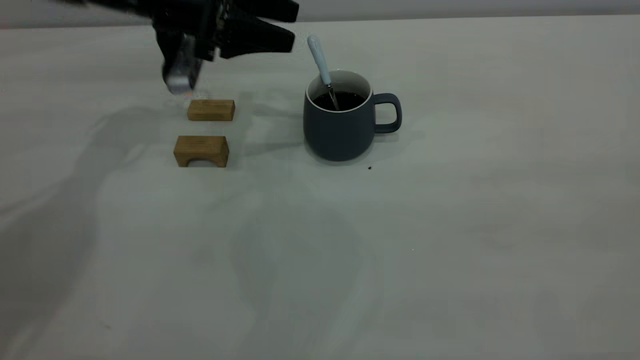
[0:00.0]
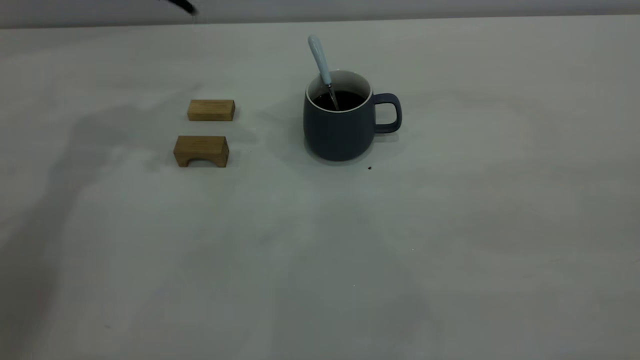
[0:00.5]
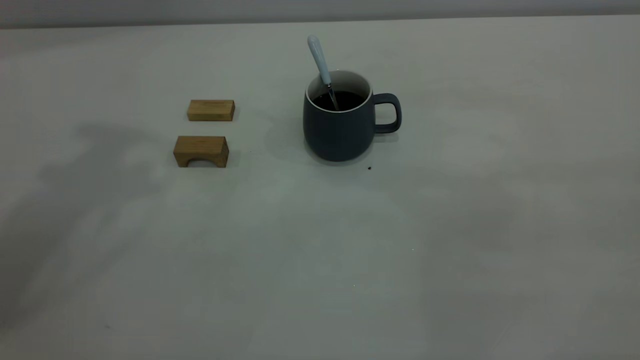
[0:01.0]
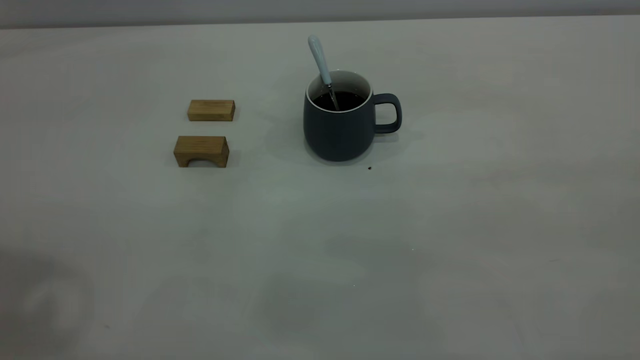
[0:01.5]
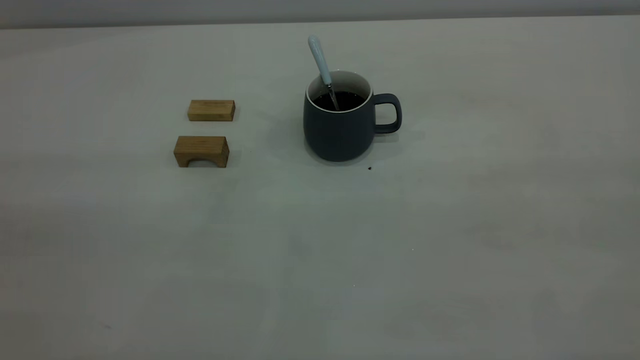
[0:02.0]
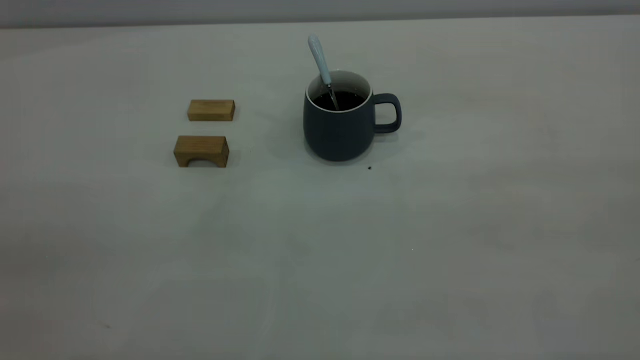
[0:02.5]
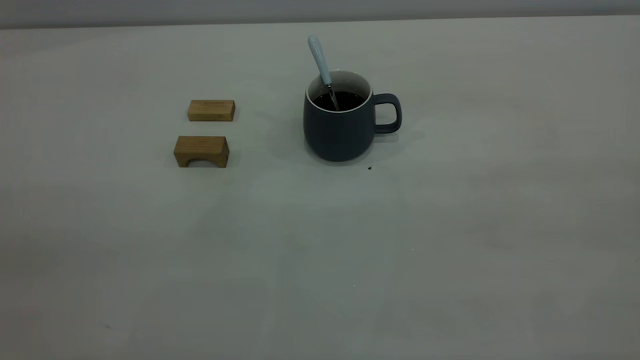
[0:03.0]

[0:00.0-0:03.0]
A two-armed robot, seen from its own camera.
0:00.0 to 0:01.5: The left gripper moves backward and upward, roughly 40 cm.

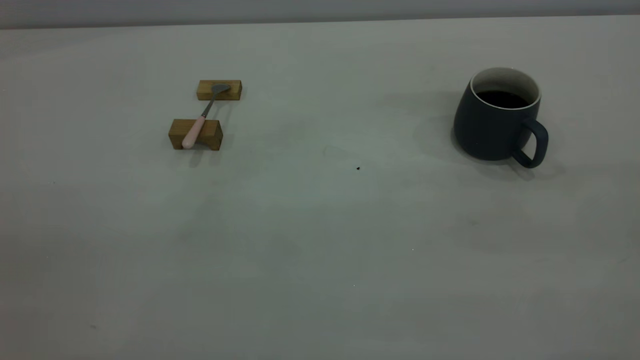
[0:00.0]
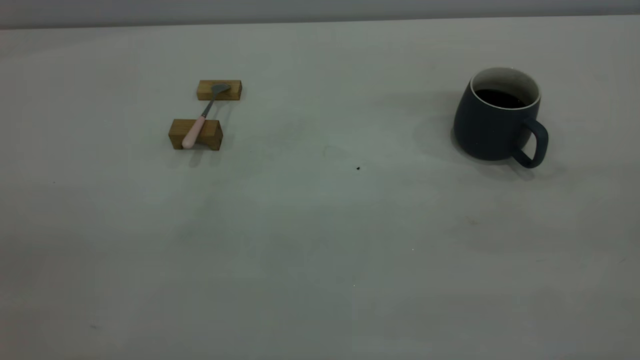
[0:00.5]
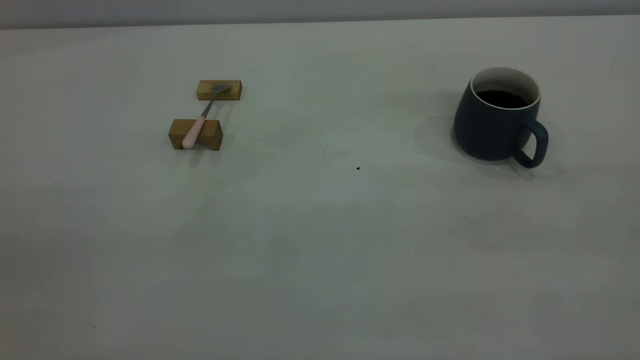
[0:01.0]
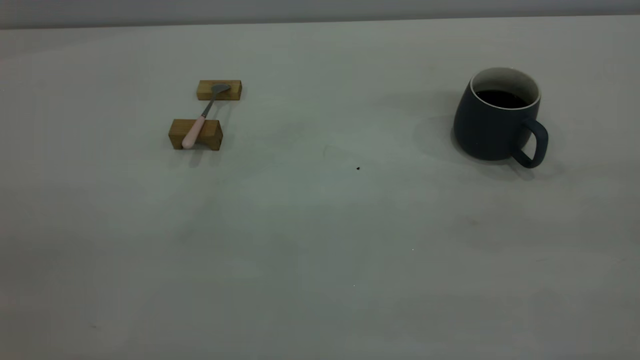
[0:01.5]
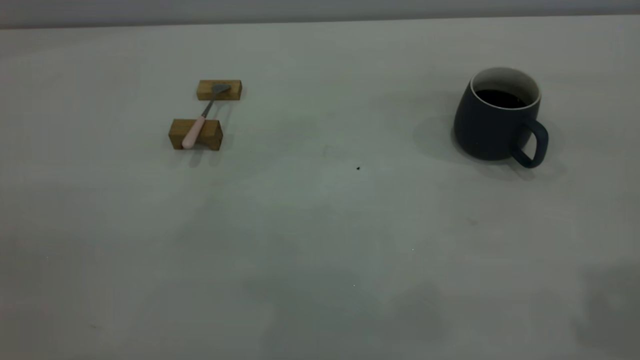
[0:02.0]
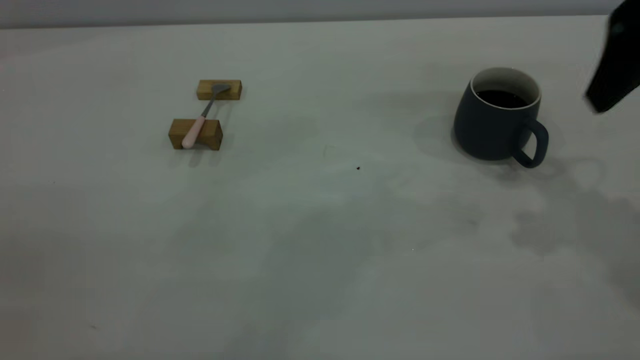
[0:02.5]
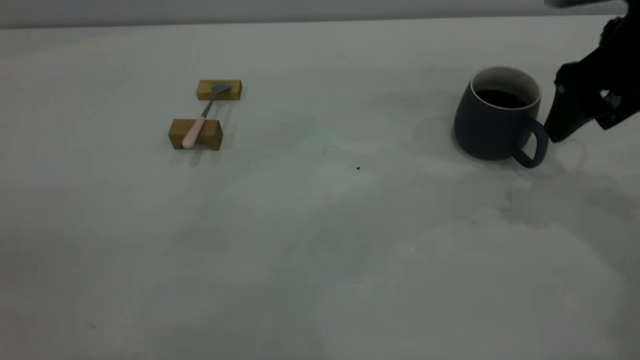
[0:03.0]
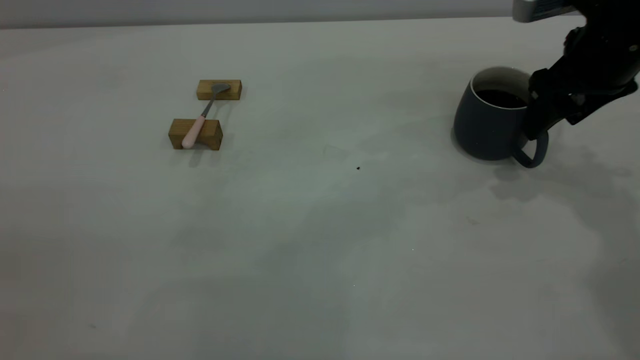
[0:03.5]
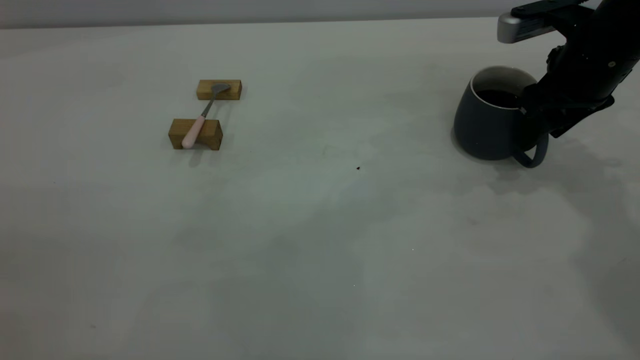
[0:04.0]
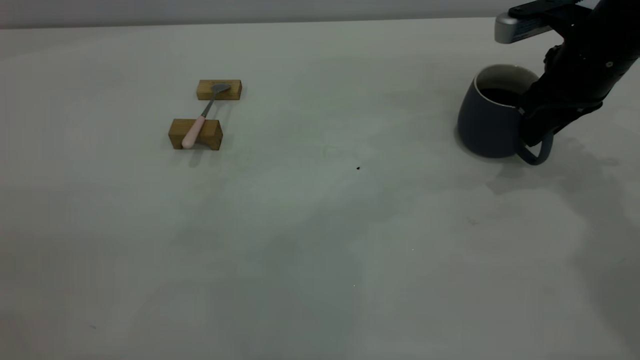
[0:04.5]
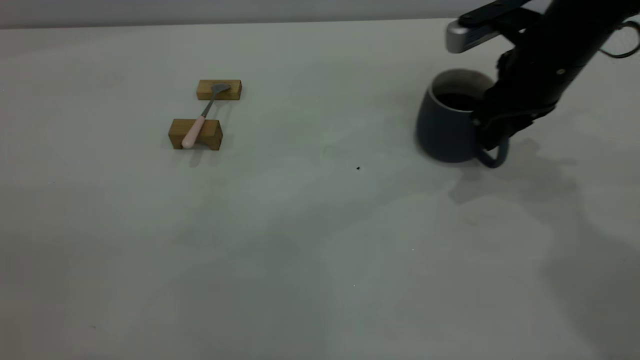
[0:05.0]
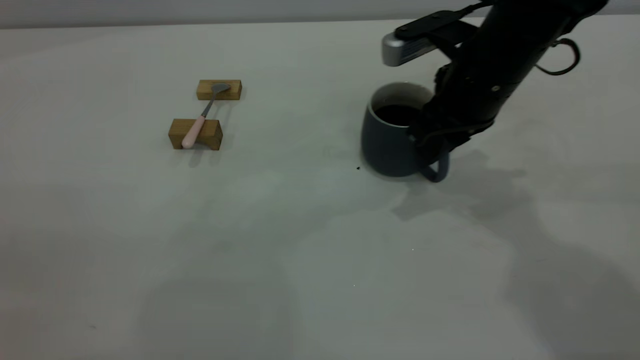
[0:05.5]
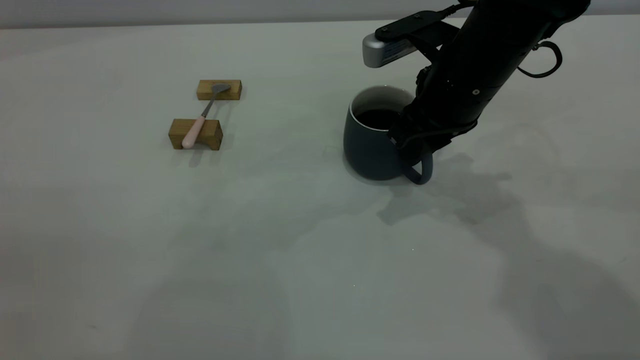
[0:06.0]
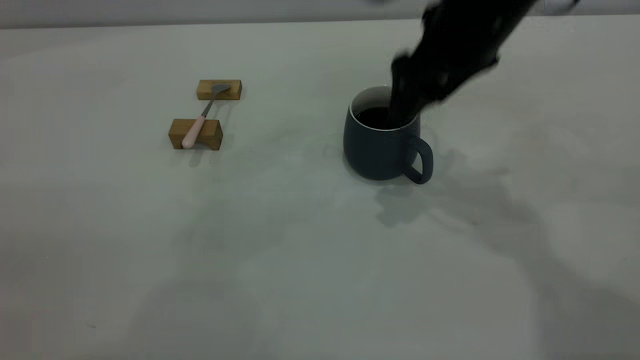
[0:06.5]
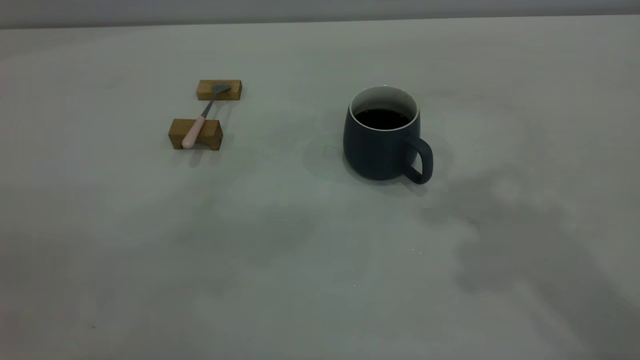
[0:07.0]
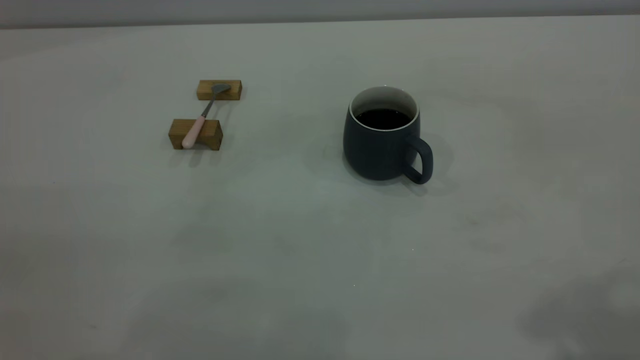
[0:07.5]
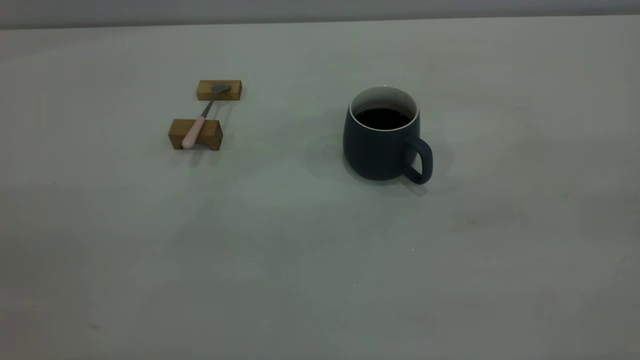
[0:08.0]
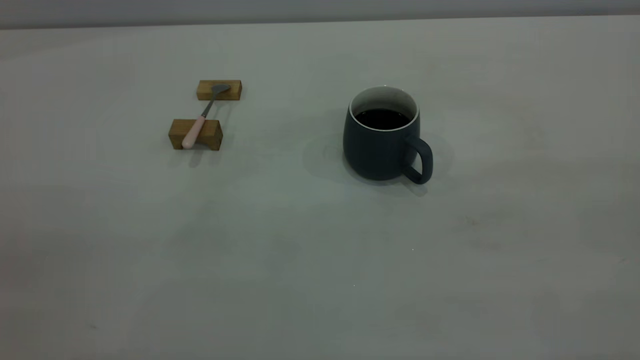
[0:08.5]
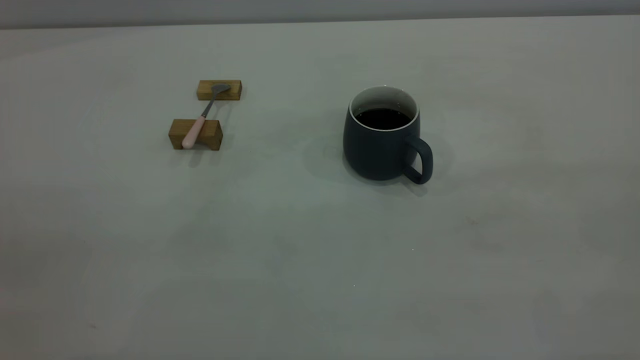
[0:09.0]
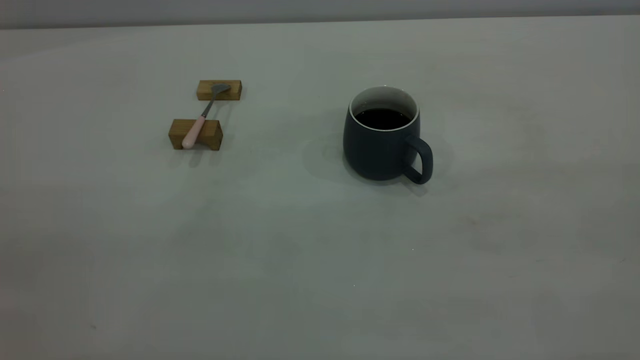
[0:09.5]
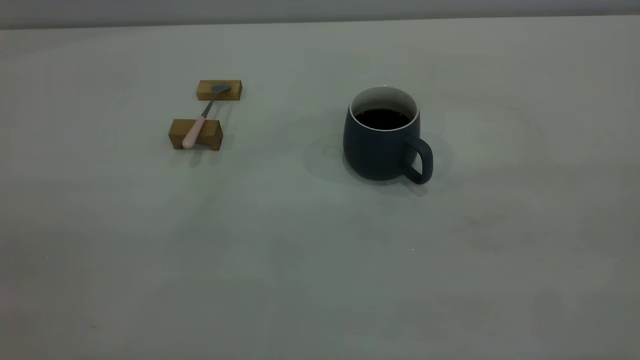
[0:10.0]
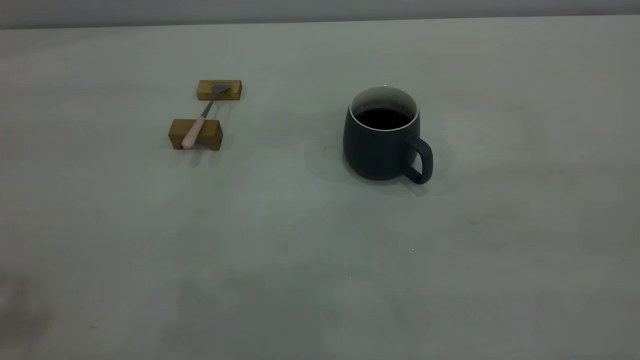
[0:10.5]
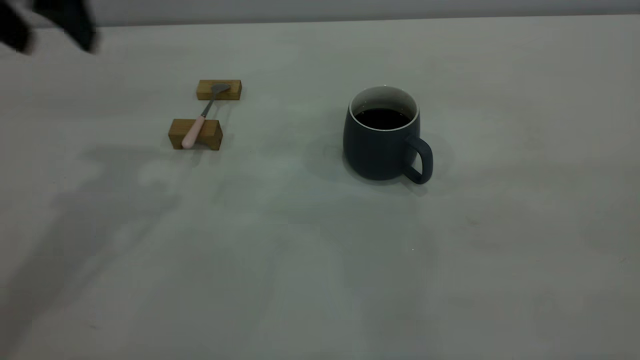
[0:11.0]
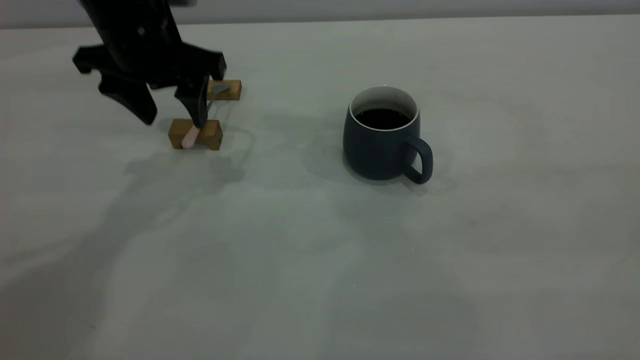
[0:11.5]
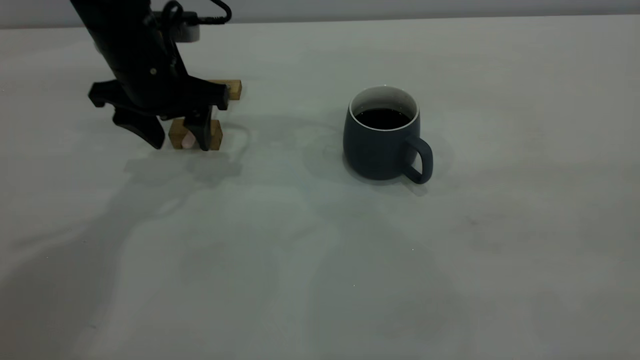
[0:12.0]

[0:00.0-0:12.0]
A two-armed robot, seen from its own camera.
Step, 0:00.0 to 0:06.5: Move the cup with coffee to the center of view.
0:02.0 to 0:04.0: The right gripper heads downward and forward, covering some 35 cm, and closes its fingers.
0:04.0 to 0:06.0: The right gripper is displaced to the left by some 15 cm, and closes.
0:06.0 to 0:08.0: The right gripper is displaced backward, upward and to the right by some 40 cm, and opens up.
0:10.0 to 0:12.0: The left gripper shifts approximately 50 cm forward and downward, and opens its fingers.

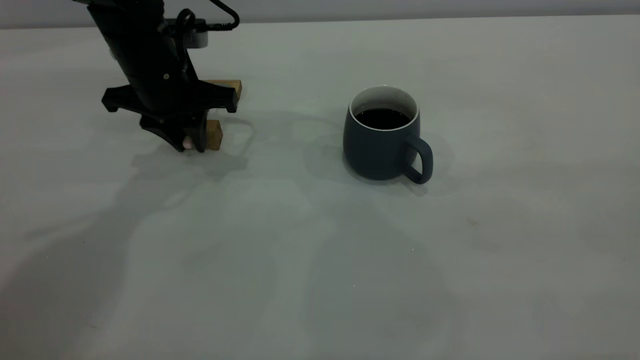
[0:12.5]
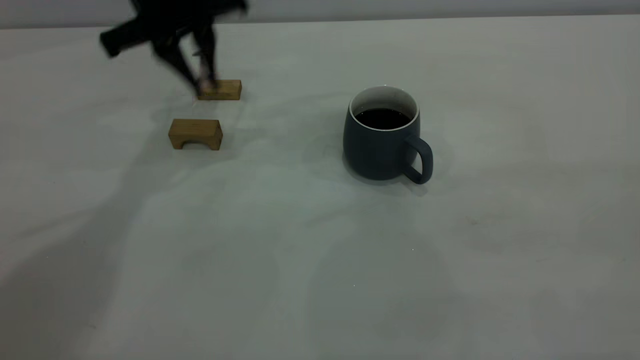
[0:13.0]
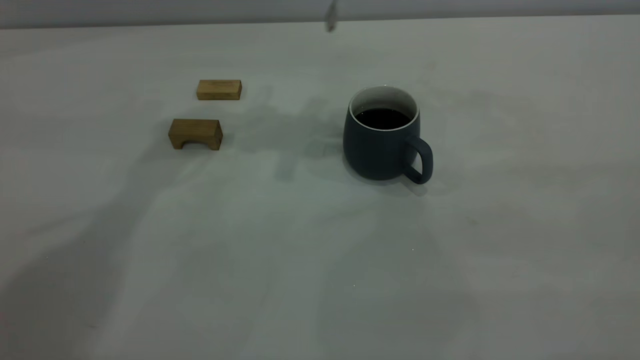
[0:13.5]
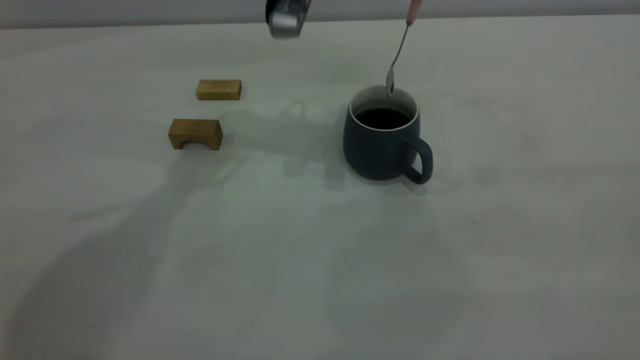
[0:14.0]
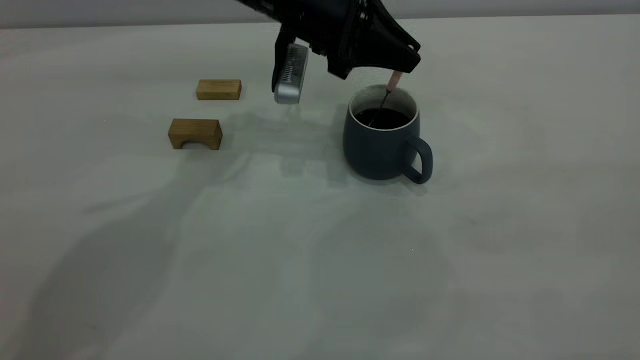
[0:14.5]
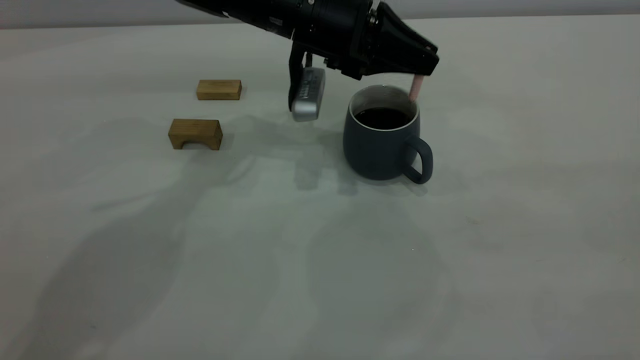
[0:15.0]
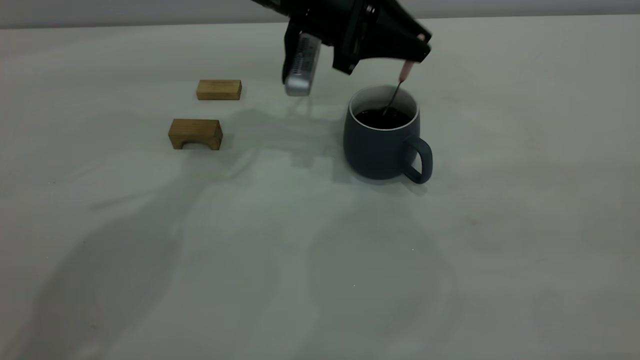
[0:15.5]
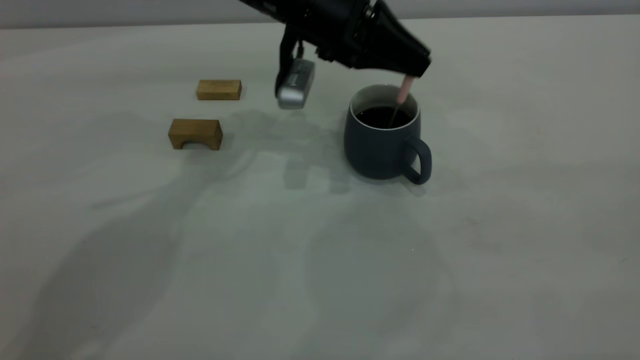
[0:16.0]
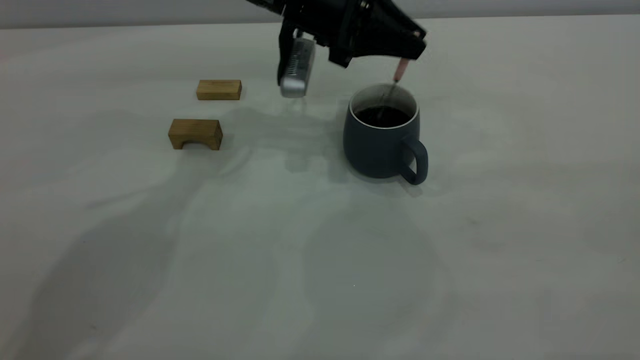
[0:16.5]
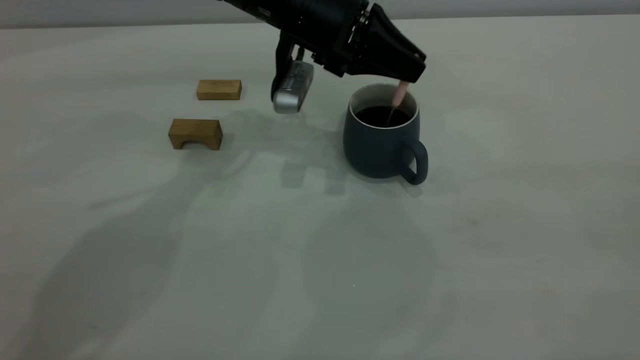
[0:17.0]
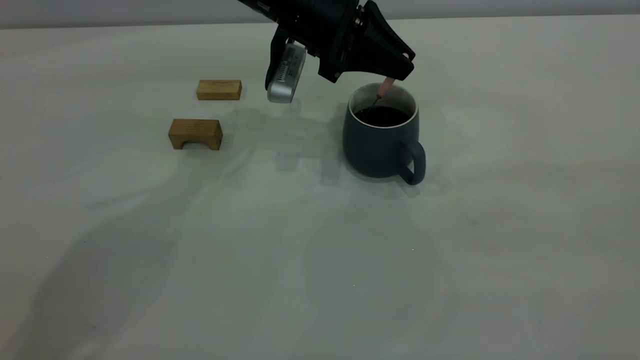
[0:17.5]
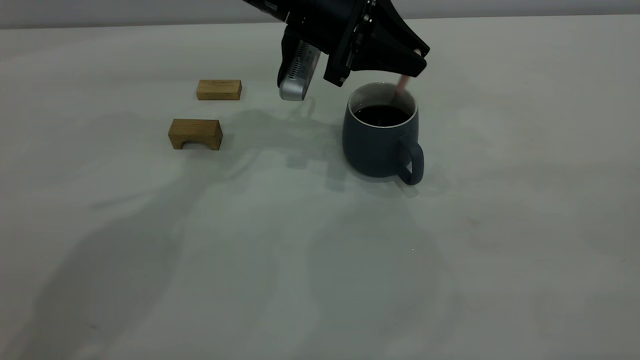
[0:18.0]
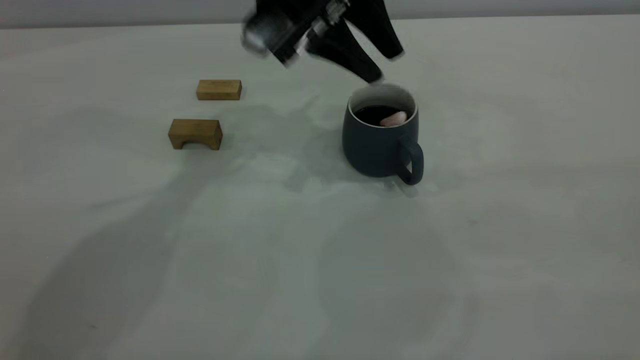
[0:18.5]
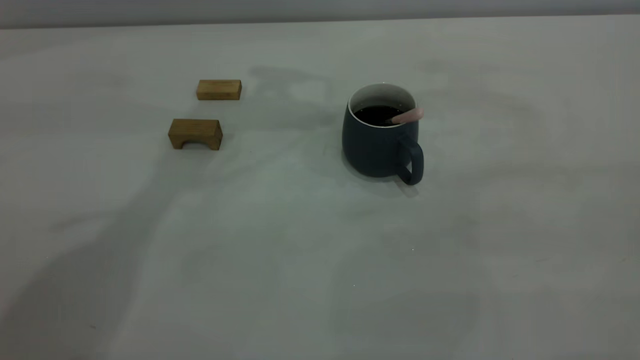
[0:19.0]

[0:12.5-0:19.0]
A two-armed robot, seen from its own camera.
Step, 0:13.0 to 0:18.5: Stir the coffee in the cup.
0:12.5 to 0:14.5: The left gripper moves to the right, about 15 cm, and travels upward and back again, some 15 cm each way.
0:14.5 to 0:17.0: The grippers make only small movements.
0:17.0 to 0:19.0: The left gripper is displaced upward by approximately 25 cm, and opens.
